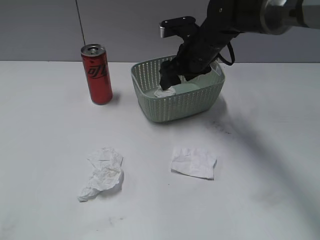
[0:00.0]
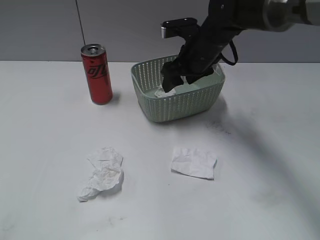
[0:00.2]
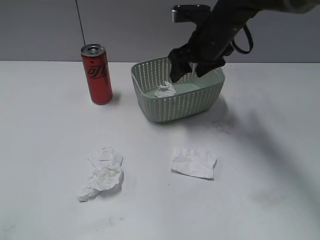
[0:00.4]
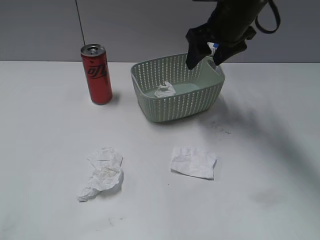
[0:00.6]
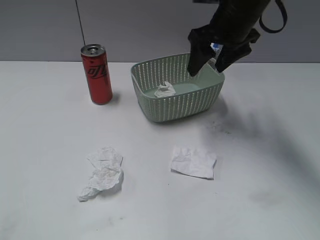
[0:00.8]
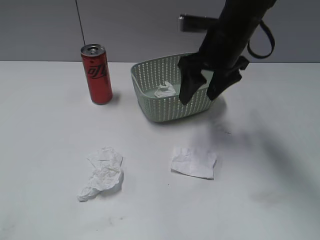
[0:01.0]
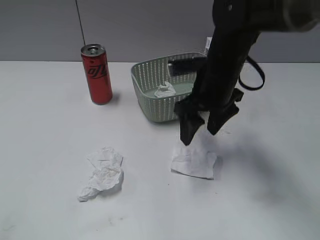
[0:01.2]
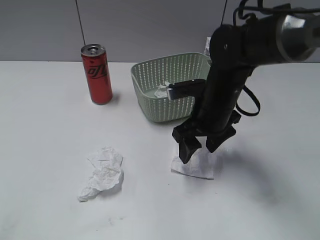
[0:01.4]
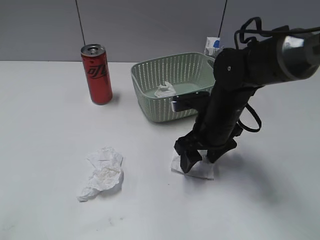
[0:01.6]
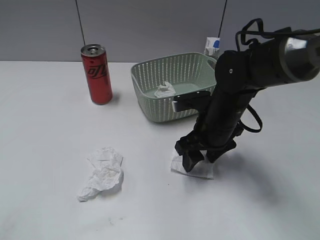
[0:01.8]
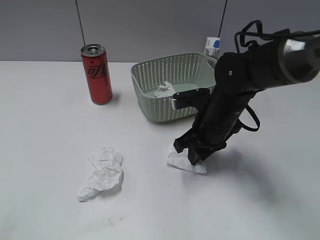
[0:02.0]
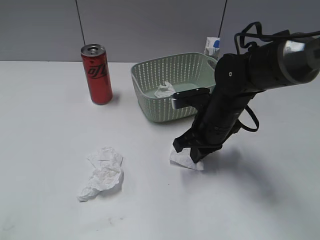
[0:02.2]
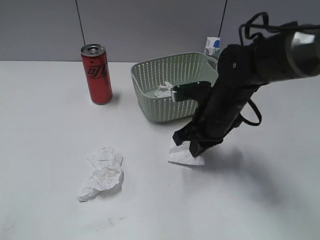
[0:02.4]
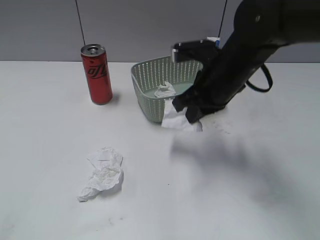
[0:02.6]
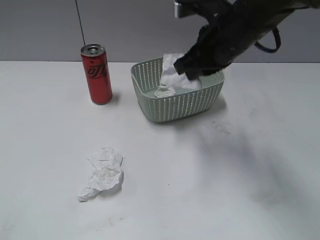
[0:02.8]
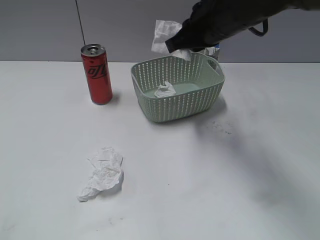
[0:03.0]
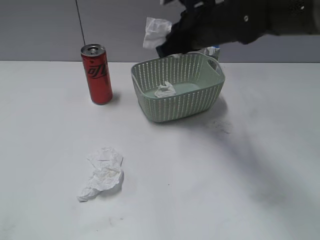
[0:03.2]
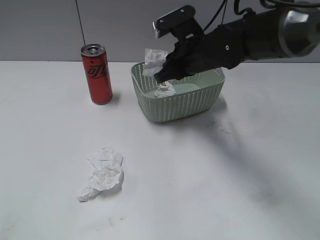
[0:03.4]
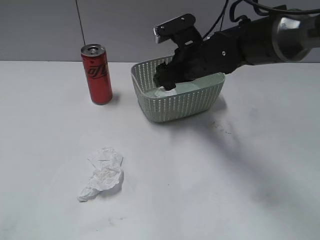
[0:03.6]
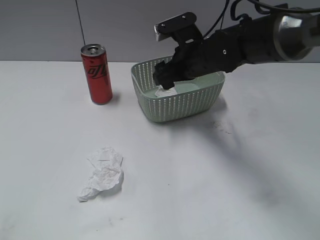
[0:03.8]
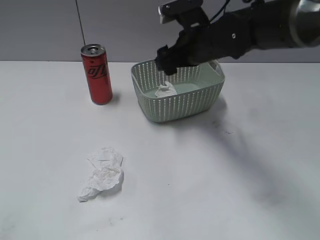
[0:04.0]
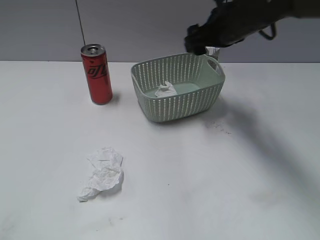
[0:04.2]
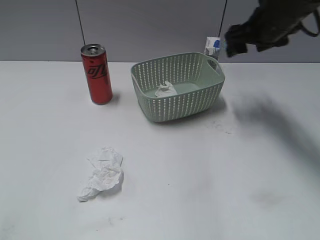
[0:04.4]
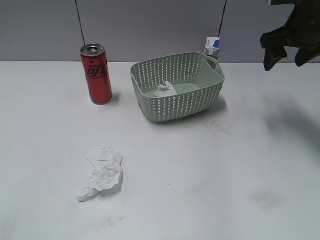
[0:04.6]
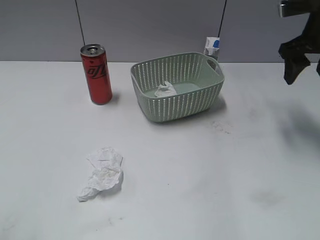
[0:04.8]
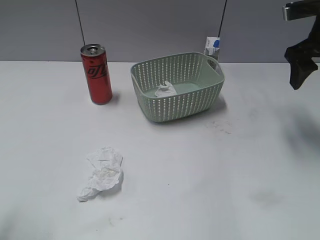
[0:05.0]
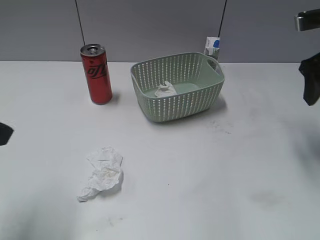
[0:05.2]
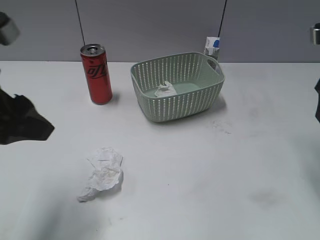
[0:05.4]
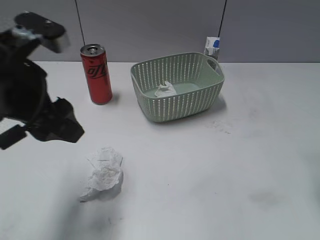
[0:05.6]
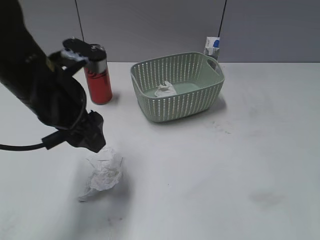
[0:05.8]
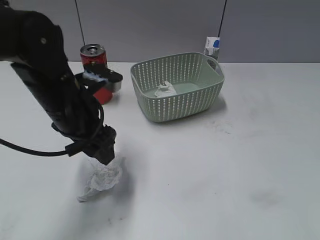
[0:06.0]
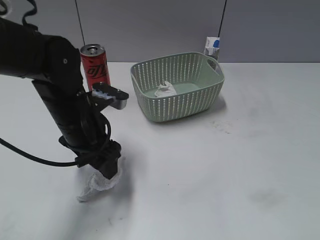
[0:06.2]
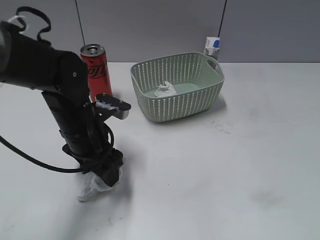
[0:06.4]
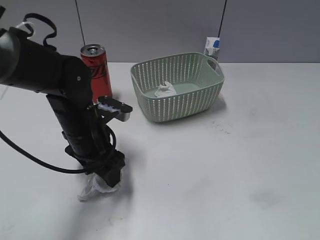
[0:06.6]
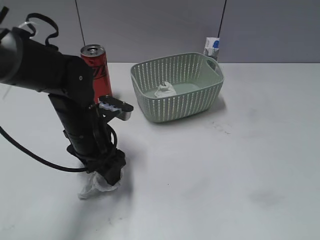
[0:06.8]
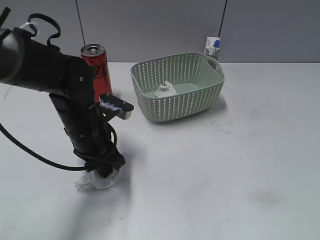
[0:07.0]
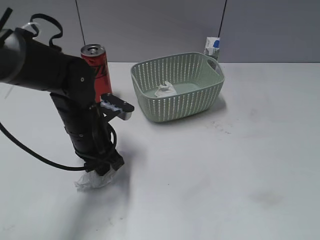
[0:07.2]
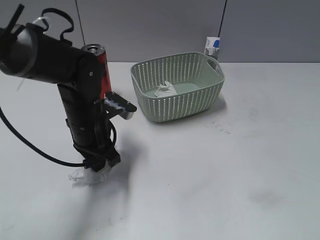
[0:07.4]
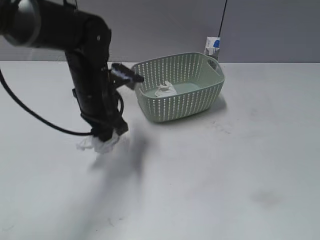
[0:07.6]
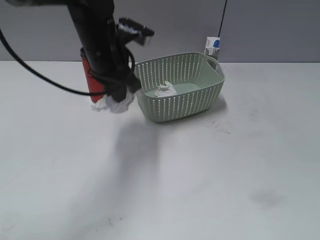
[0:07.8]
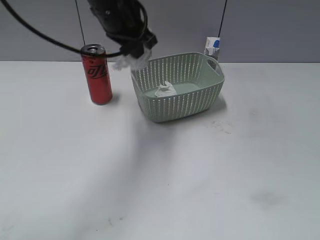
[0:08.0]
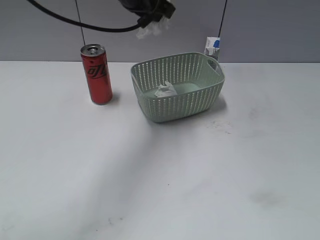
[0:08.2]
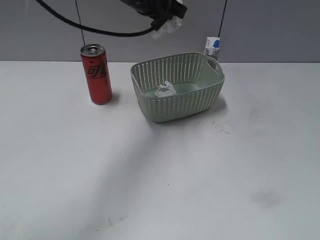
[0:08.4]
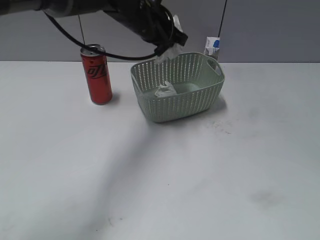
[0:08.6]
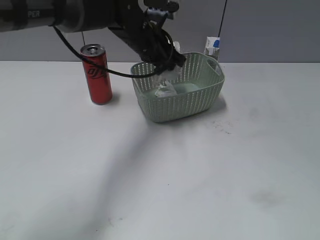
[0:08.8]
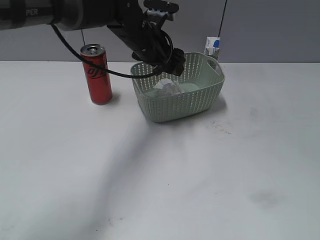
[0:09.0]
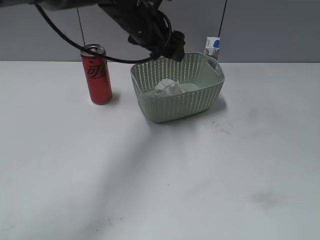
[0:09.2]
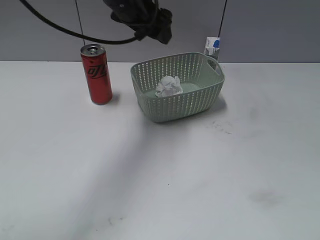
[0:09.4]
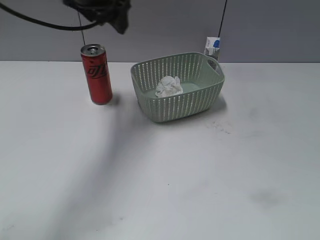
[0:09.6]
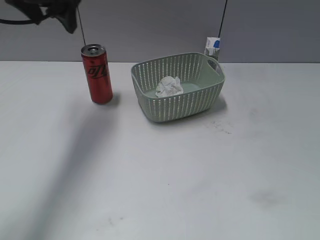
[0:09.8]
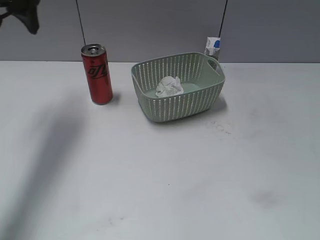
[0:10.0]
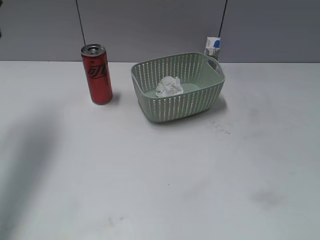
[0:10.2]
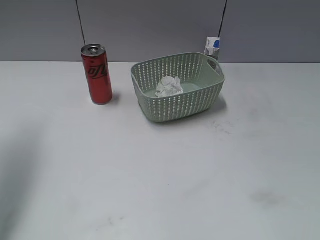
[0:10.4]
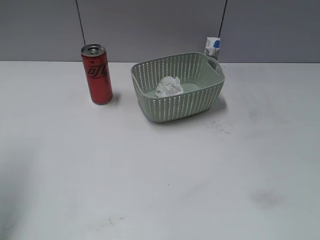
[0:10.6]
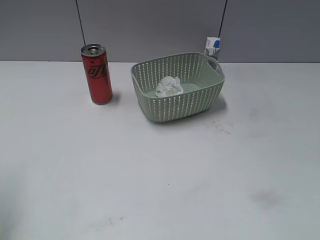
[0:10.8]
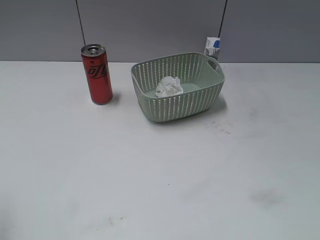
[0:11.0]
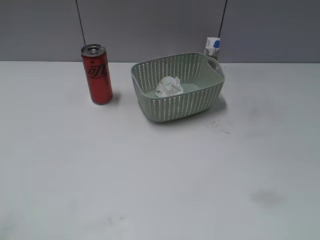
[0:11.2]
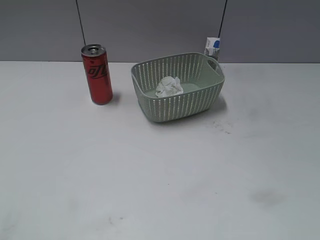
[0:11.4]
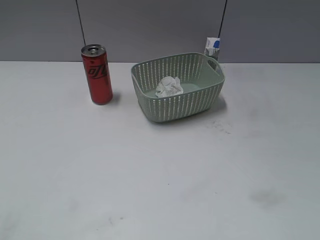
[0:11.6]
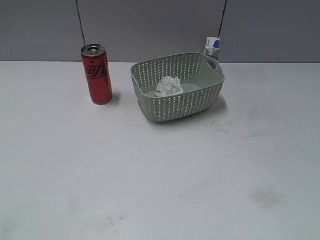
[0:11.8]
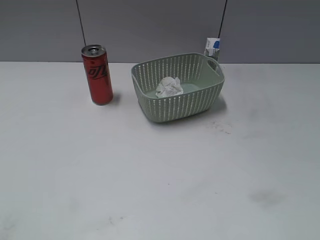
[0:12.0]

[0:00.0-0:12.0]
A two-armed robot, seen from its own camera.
Step, 0:00.4 to 0:02.4: Grasp the waste paper with right gripper.
Step, 0:02.6 to 0:03.8: Place the waste paper in the basket with right gripper.
Step, 0:04.0 to 0:07.4: Grasp the waste paper with left gripper.
Step, 0:07.6 to 0:09.0: Place the waste paper in the basket with left gripper.
0:00.0 to 0:01.6: The right gripper heads backward and downward, covering about 15 cm.
0:01.6 to 0:03.0: The right gripper travels upward by some 15 cm, and closes.
0:03.0 to 0:04.4: The right gripper moves to the right and forward, roughly 15 cm, and opens its fingers.
0:04.4 to 0:06.0: The left gripper shifts some 35 cm forward, to the right and downward, while the right gripper is displaced backward by approximately 30 cm.
0:06.0 to 0:07.6: The right gripper is displaced backward by about 10 cm. The left gripper shifts approximately 5 cm forward, and closes.
0:07.6 to 0:09.0: The left gripper is displaced forward and to the right by roughly 10 cm, moves roughly 10 cm upward and comes back, and opens its fingers.
0:09.0 to 0:10.4: The left gripper shifts approximately 35 cm to the left, backward and upward.
0:10.4 to 0:12.0: The left gripper heads backward, covering about 30 cm.
